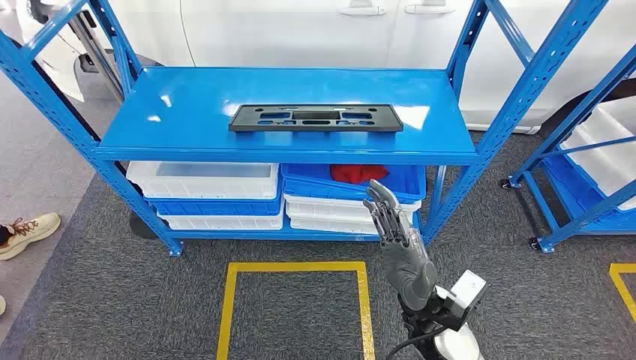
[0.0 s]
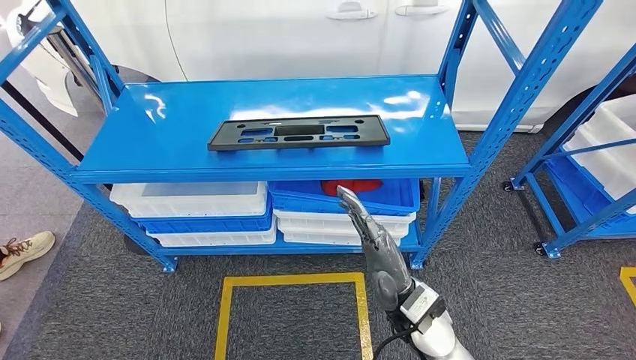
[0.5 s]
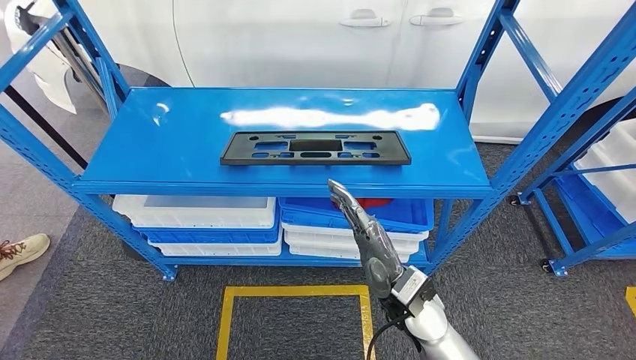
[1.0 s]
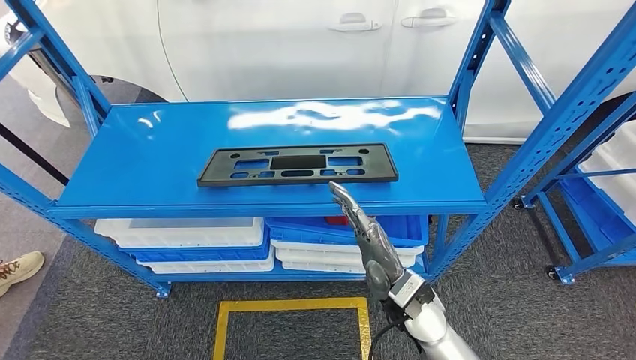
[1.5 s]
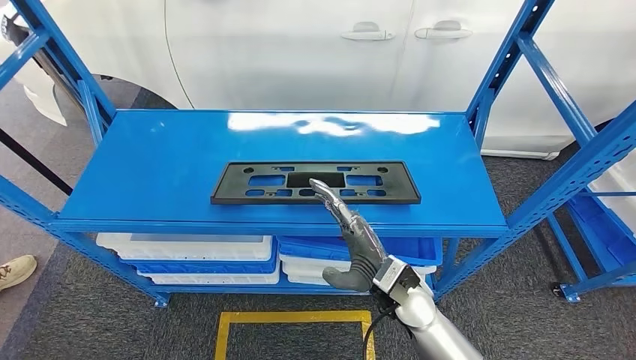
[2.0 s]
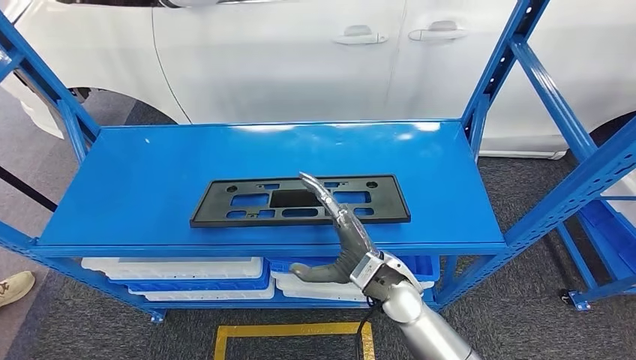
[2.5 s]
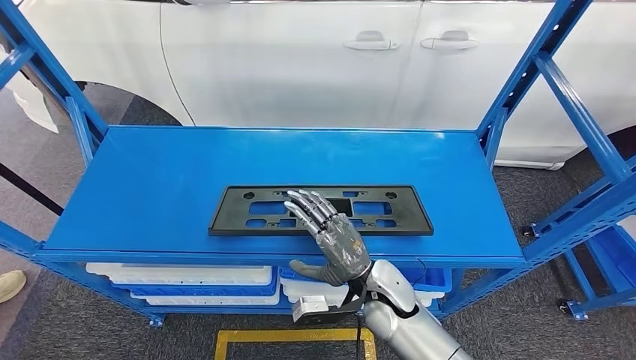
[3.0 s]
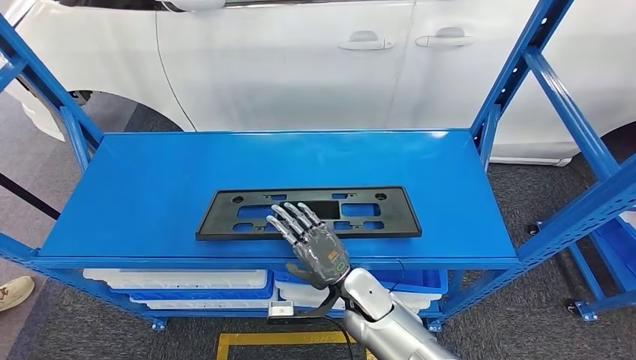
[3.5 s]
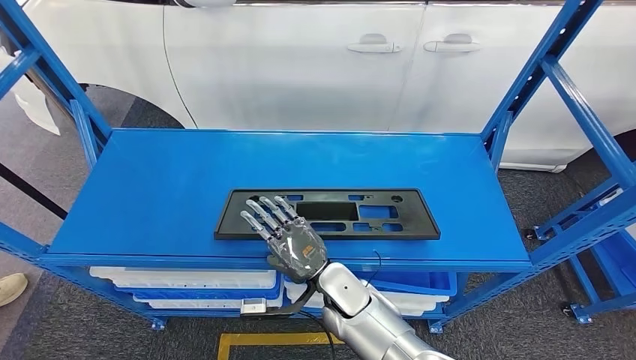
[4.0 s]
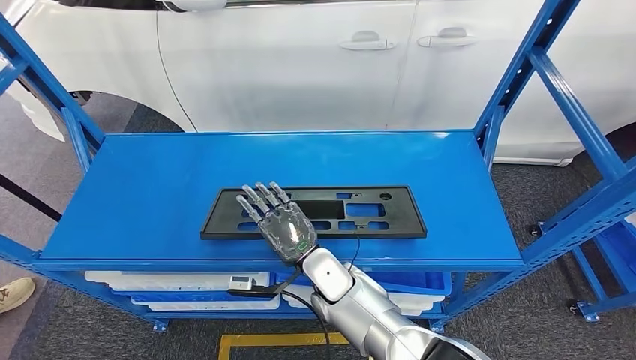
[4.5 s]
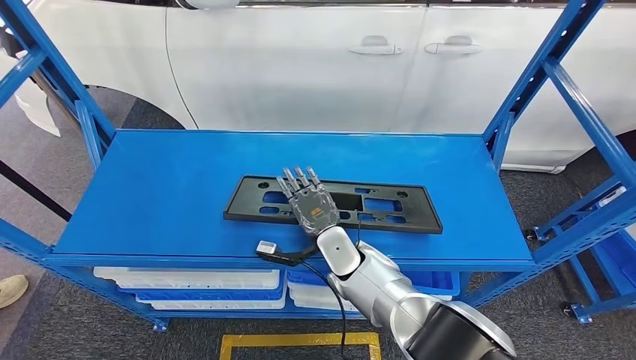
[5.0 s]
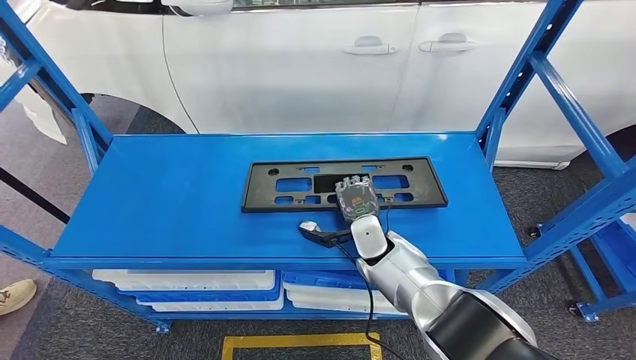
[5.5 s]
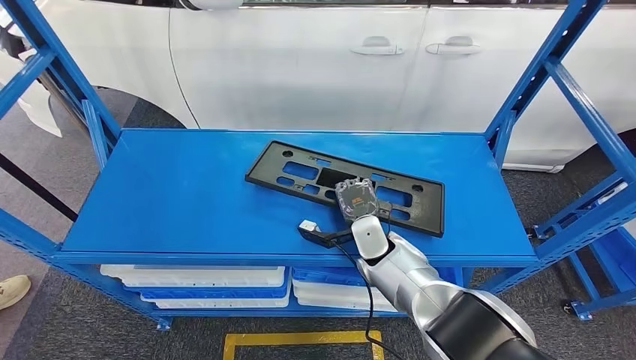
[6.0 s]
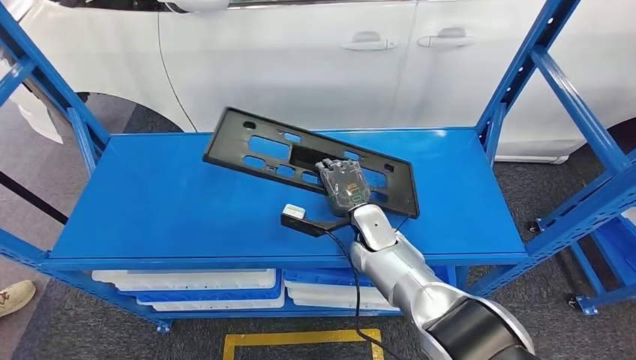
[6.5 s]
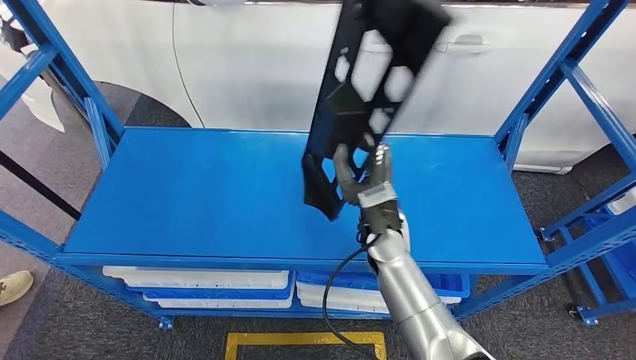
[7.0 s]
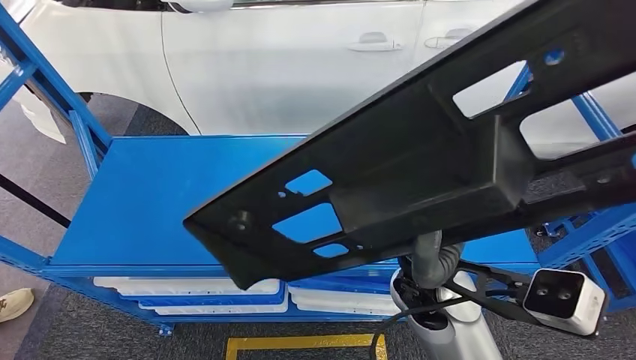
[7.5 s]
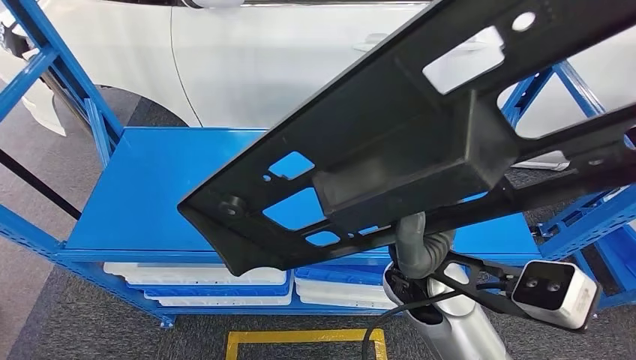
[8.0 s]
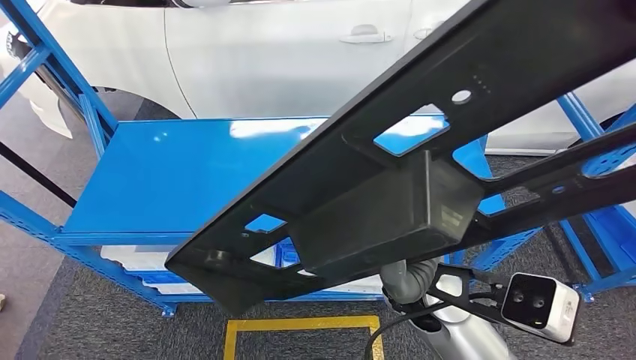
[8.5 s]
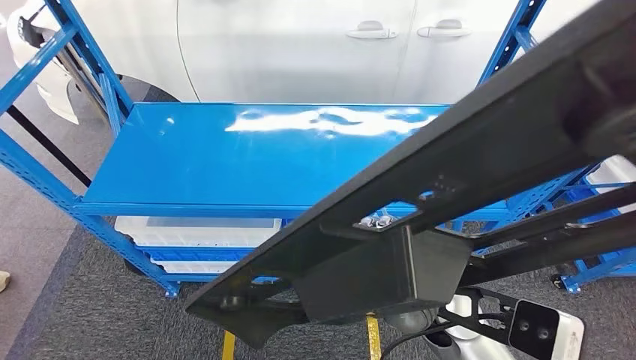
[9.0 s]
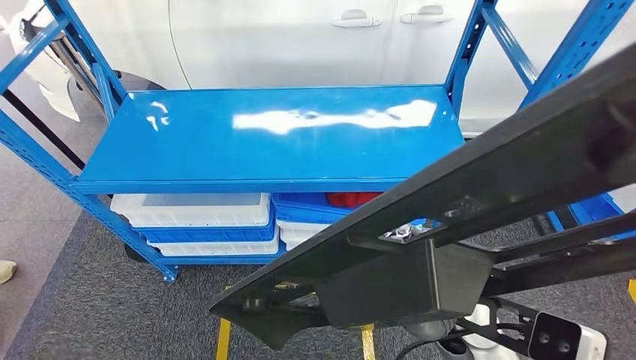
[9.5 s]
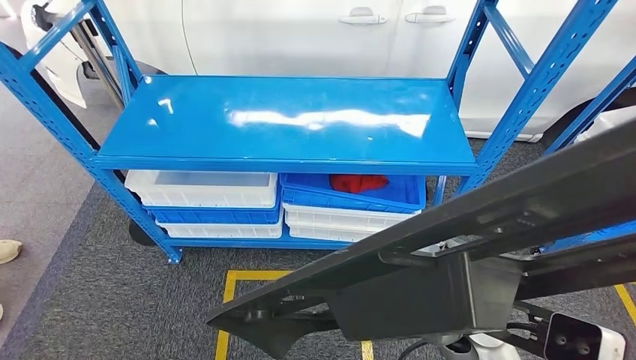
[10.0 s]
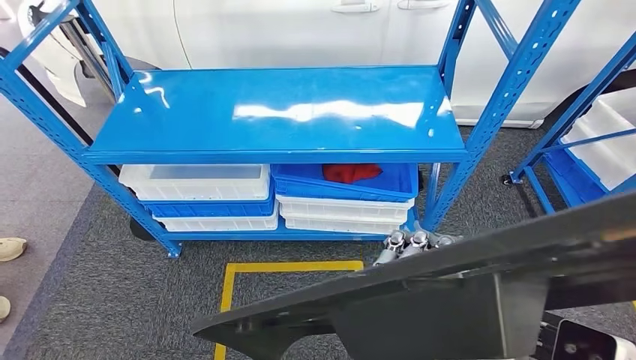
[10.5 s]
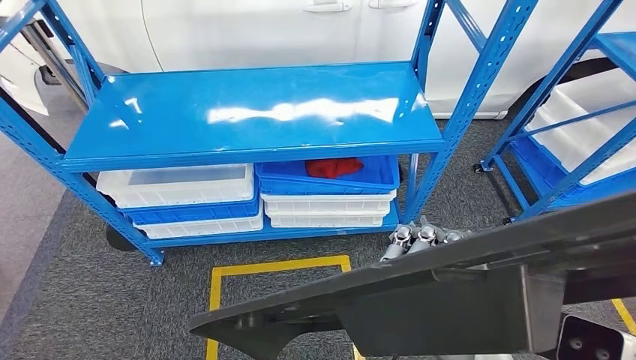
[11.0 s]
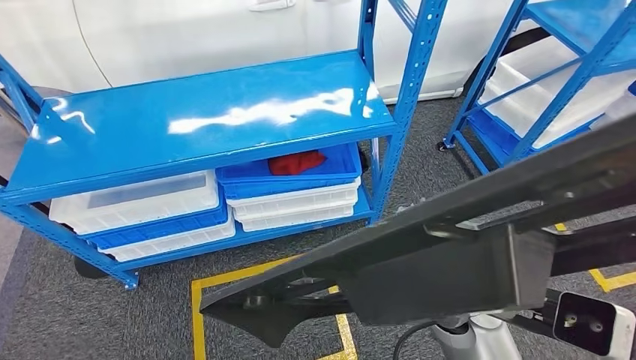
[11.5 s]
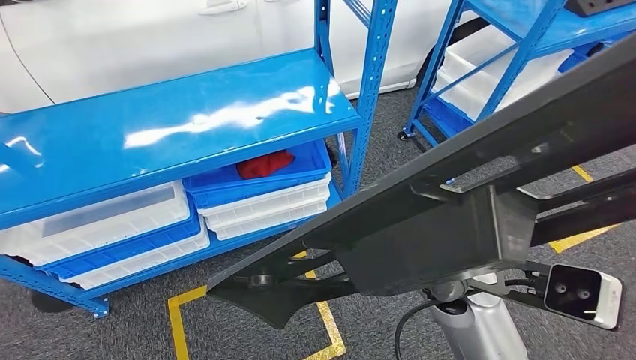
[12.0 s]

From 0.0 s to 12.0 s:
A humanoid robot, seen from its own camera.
Step, from 0.0 s to 8.5 s: Pick up the large material from the shelf.

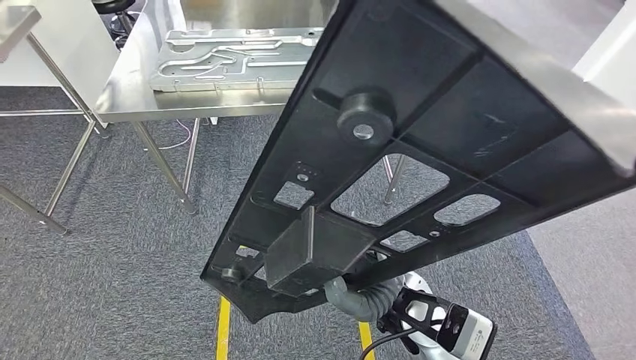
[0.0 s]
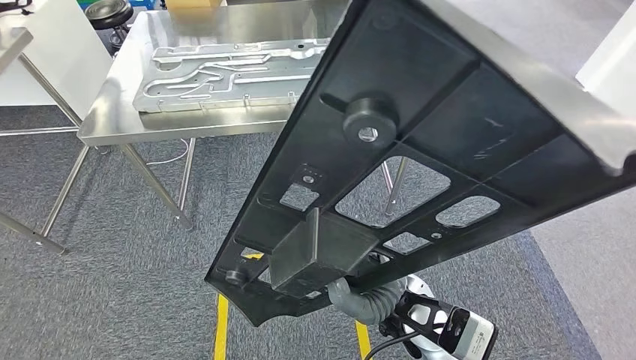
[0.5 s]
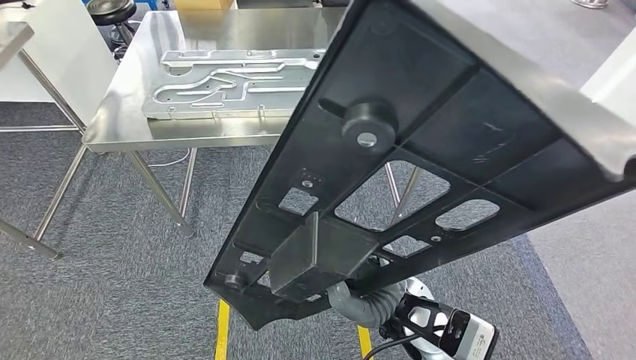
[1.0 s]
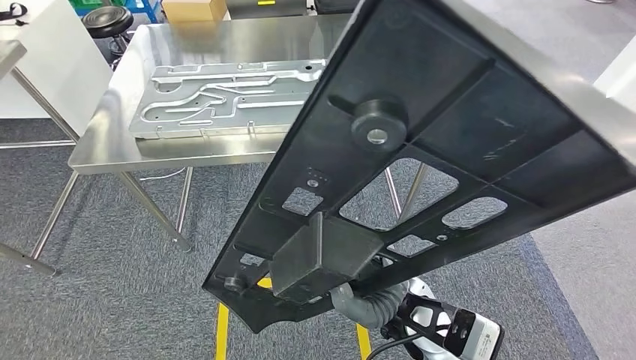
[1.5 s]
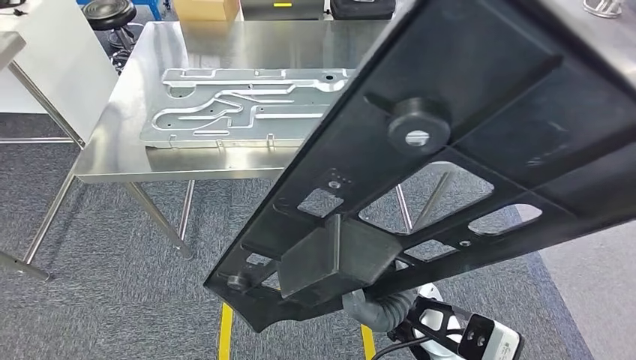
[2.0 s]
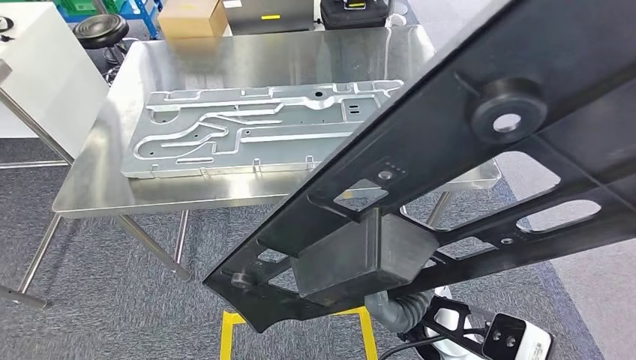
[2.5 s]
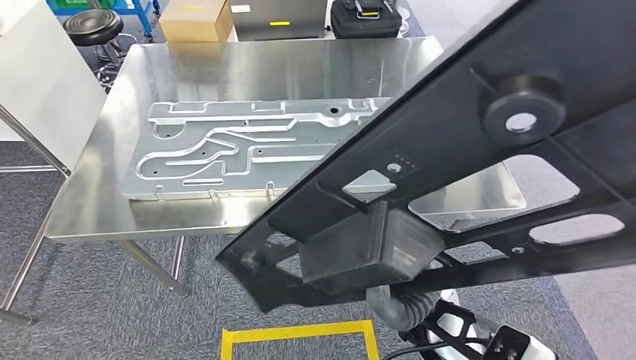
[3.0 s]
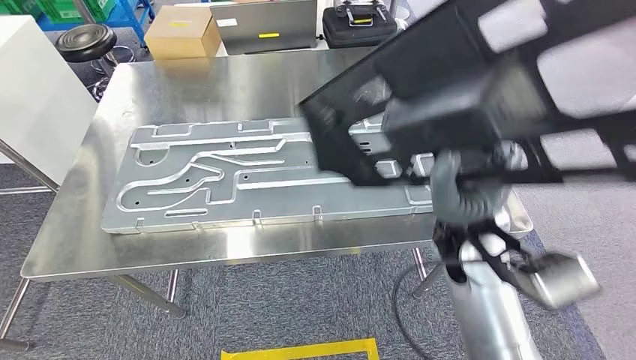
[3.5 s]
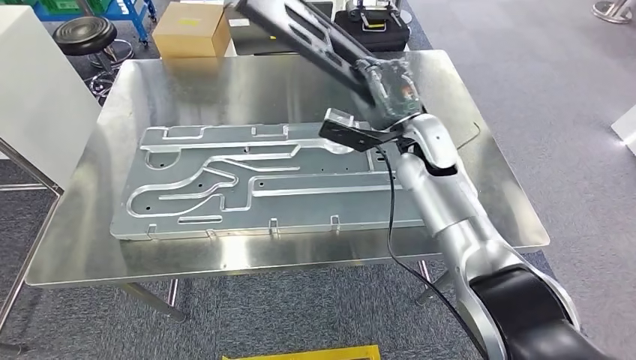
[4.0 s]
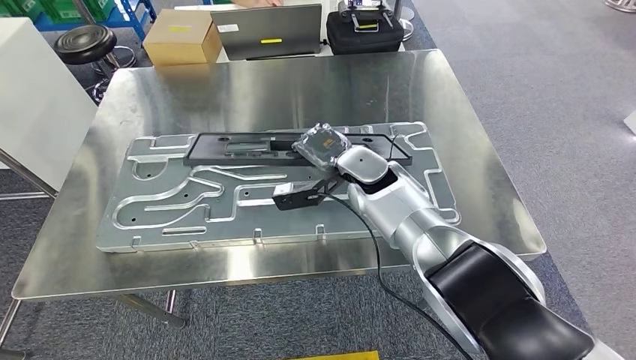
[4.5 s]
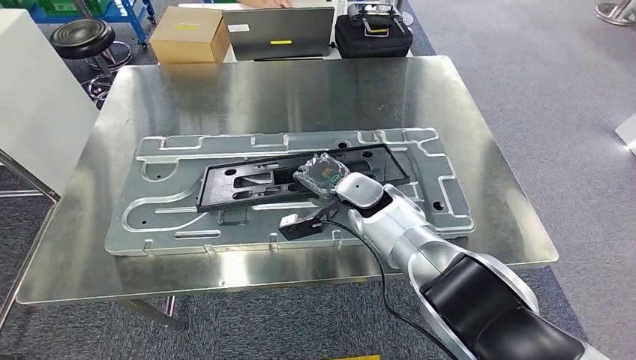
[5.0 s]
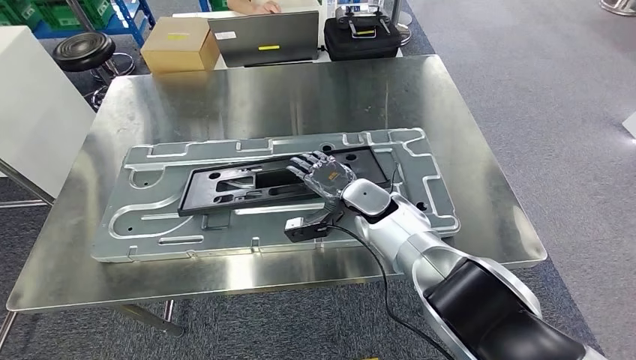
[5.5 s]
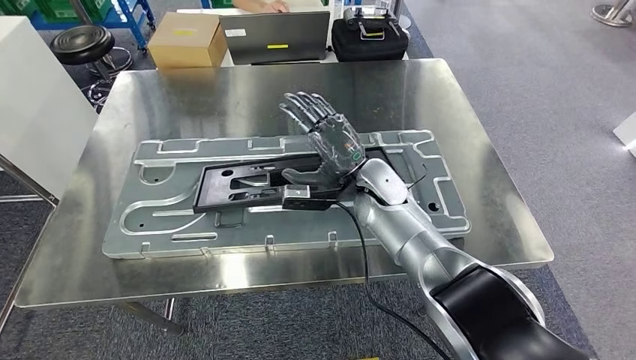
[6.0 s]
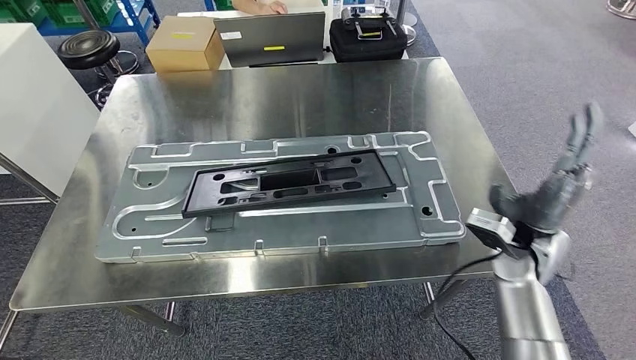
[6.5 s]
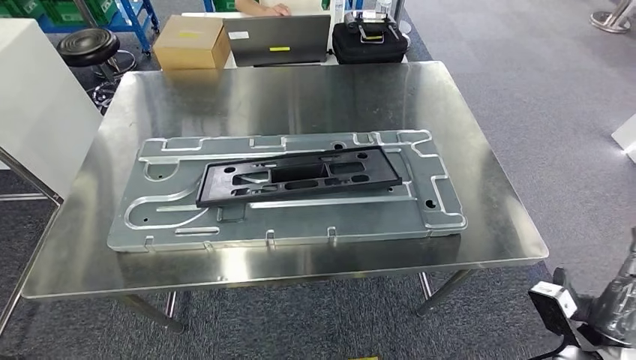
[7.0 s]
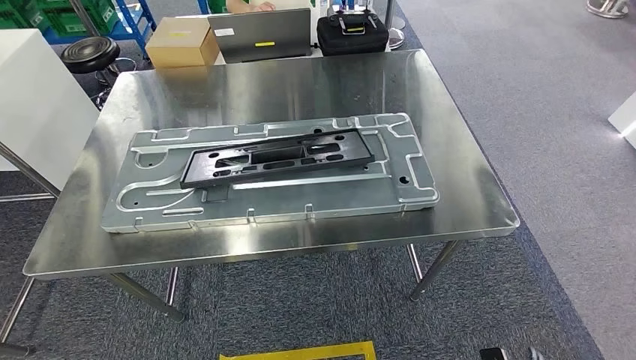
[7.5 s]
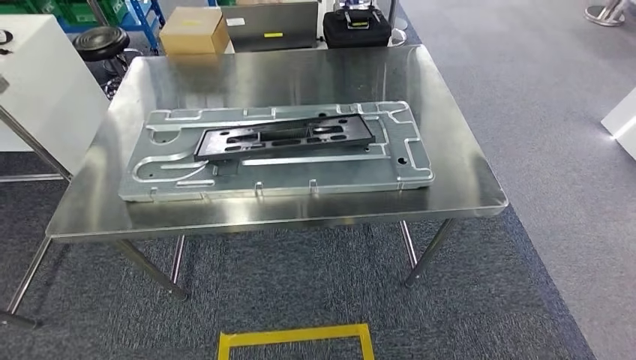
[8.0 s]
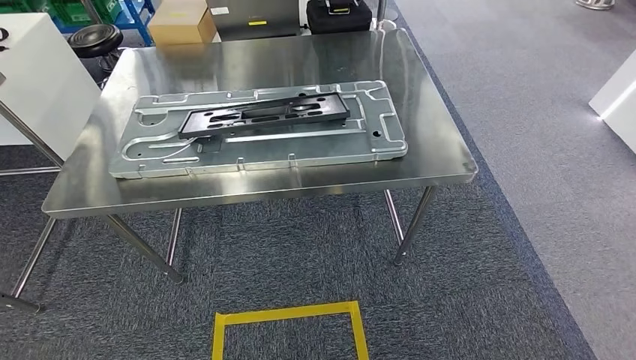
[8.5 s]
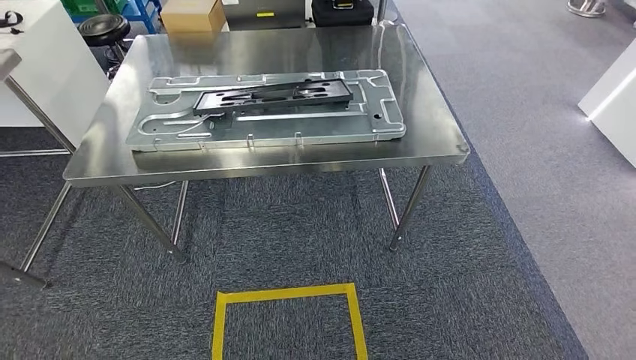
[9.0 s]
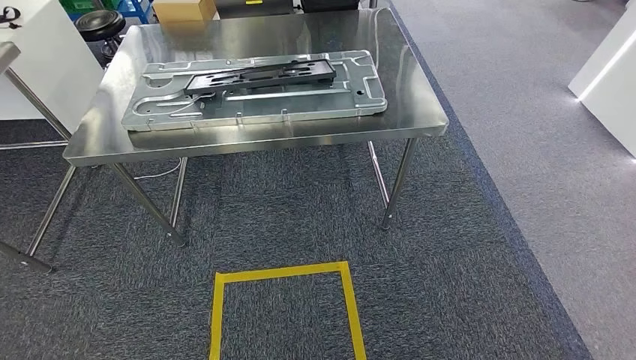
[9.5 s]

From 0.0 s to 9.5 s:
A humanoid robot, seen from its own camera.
Step, from 0.0 s to 4.0 s: Move the large material to the workbench.
Step, from 5.5 s to 6.5 s: Insert the large material into the corresponding slot on the workbench.
Step, from 8.5 s to 9.0 s: Move to the initial position of the shelf.
